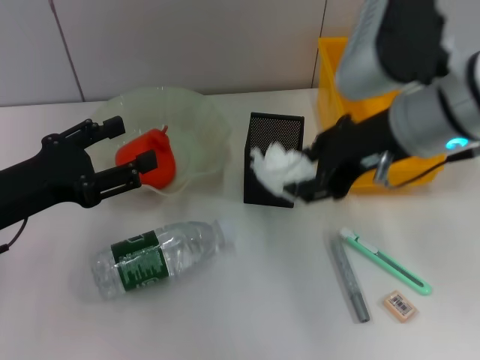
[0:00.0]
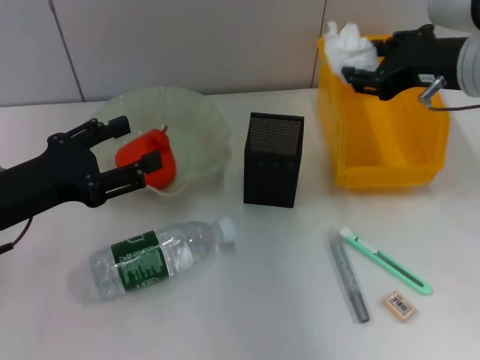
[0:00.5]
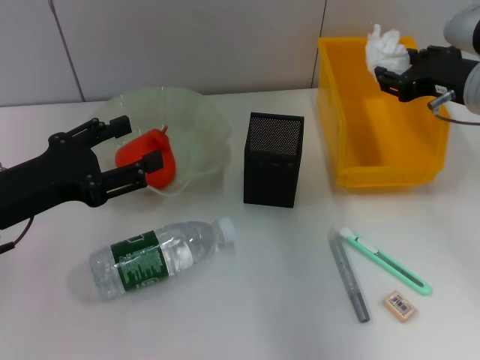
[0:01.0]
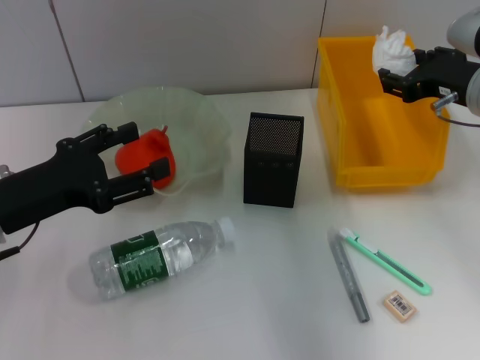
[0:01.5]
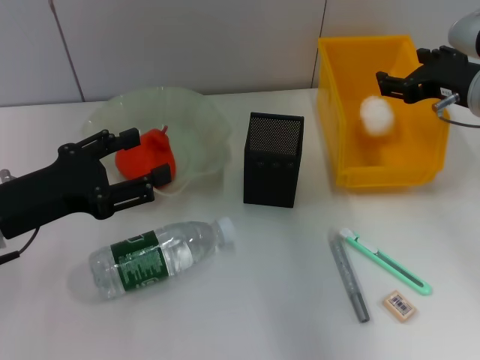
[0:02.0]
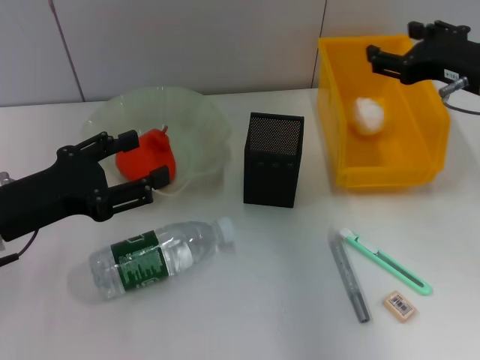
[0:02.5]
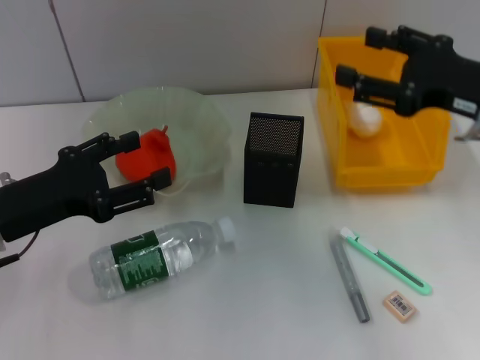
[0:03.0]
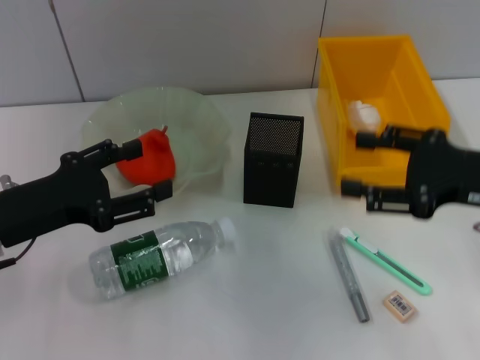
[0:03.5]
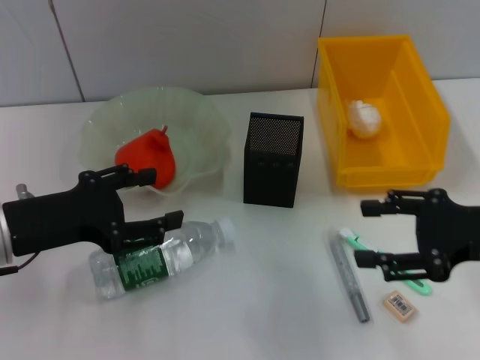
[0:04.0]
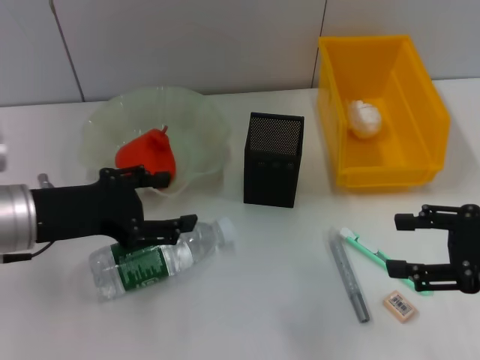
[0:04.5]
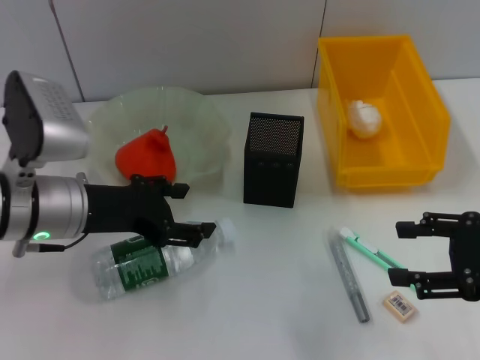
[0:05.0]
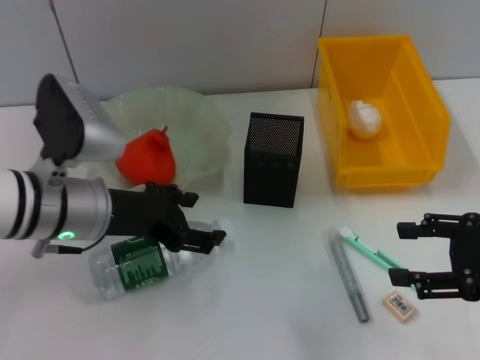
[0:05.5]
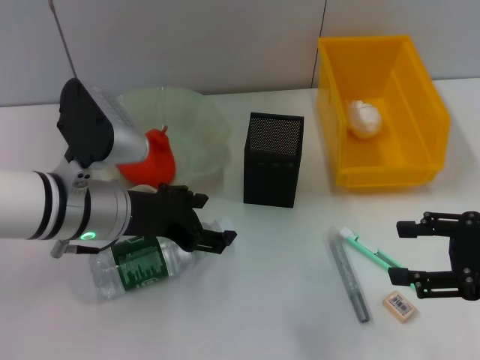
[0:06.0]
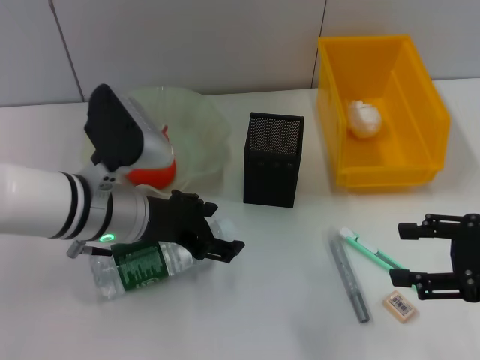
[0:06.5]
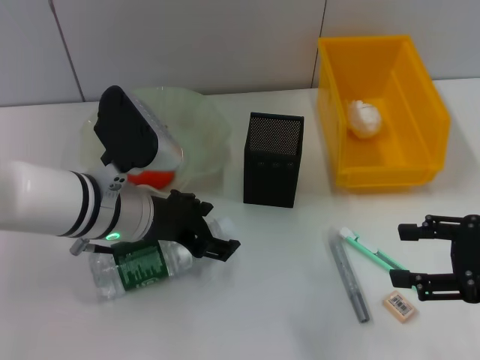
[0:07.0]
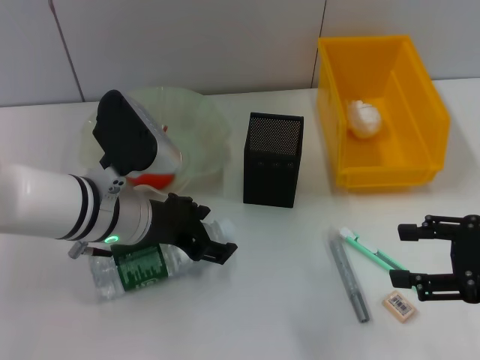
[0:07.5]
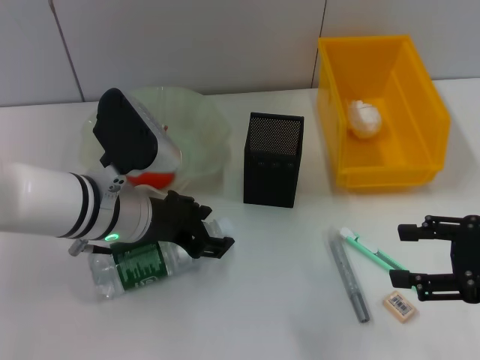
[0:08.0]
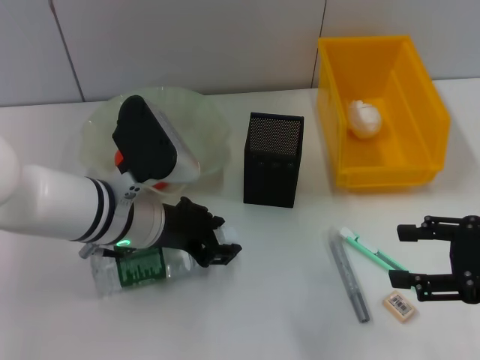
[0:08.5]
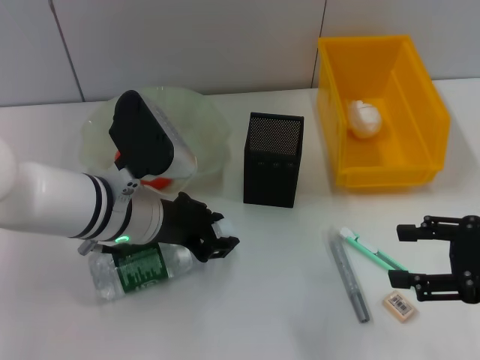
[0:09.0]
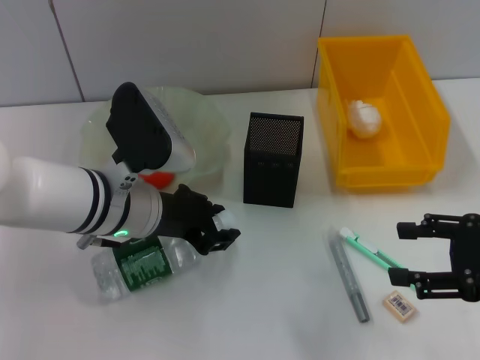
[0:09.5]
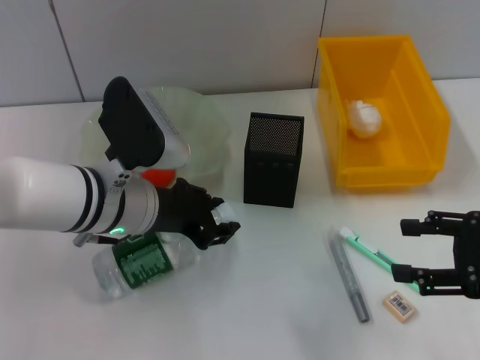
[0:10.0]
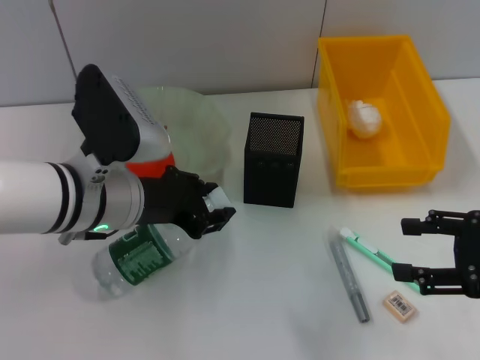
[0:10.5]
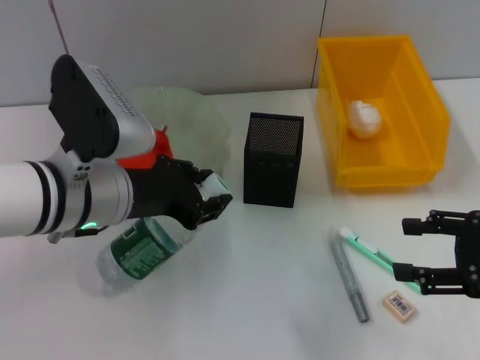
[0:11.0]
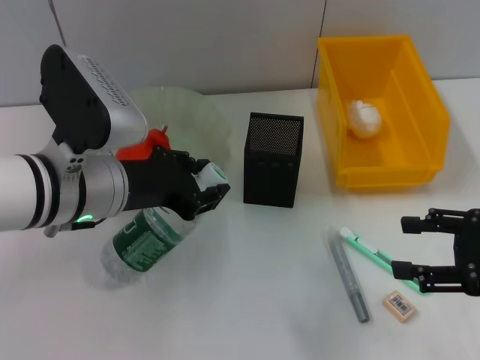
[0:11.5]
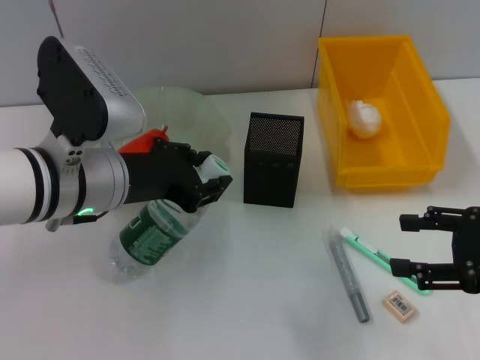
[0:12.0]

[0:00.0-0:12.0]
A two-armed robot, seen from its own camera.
Step, 0:00.0 to 0:02.0: Place the paper ball into the trash can with the right hand.
Step, 0:02.5 to 0:08.5: Grab the water bottle with the left hand.
0:00.0 to 0:02.0: The right gripper shifts roughly 15 cm to the right, downward and forward.
0:02.0 to 0:04.0: The right gripper shifts about 10 cm backward.
0:04.0 to 0:06.0: The left gripper heads to the right, covering approximately 10 cm.
0:06.0 to 0:08.0: There are only small adjustments of the grippers.
0:08.0 to 0:10.0: The left gripper closes.
0:10.0 to 0:12.0: There are only small adjustments of the grippers.

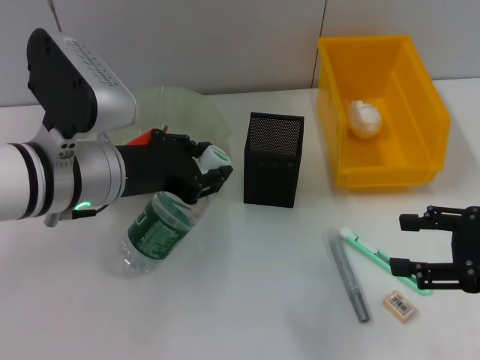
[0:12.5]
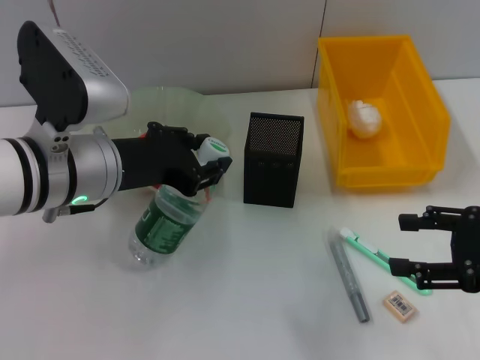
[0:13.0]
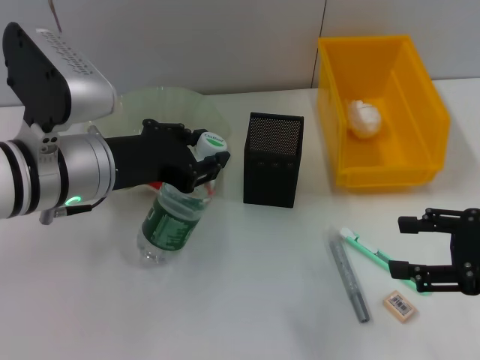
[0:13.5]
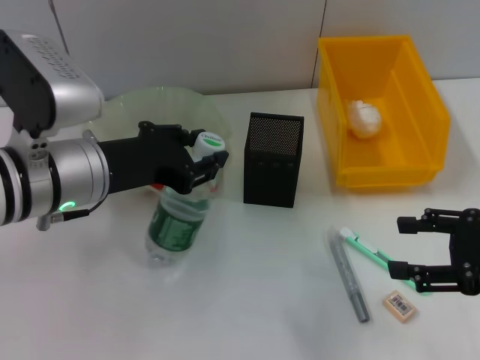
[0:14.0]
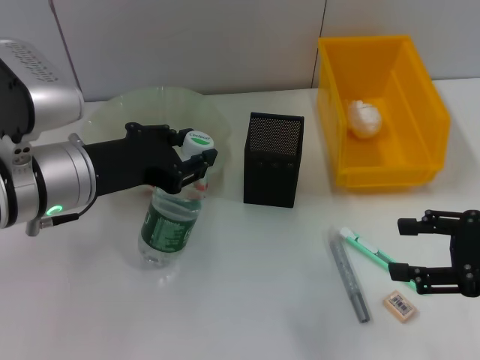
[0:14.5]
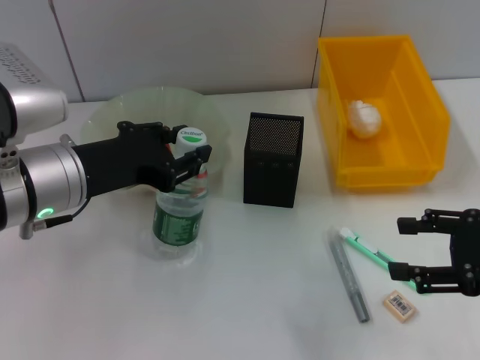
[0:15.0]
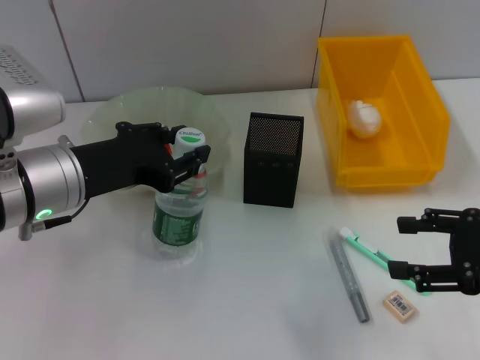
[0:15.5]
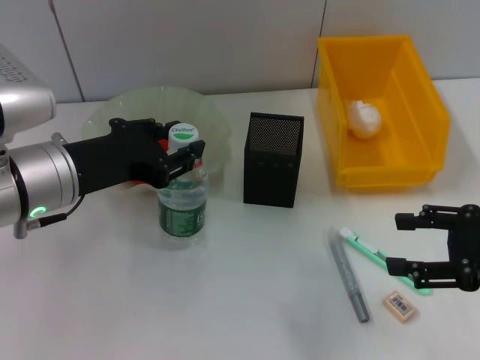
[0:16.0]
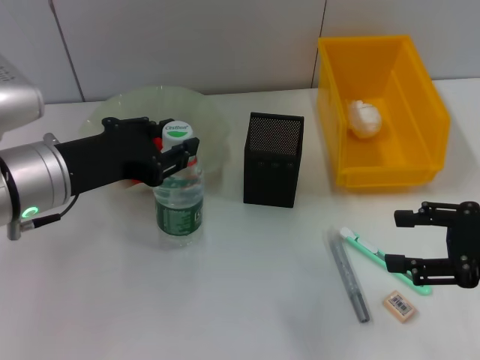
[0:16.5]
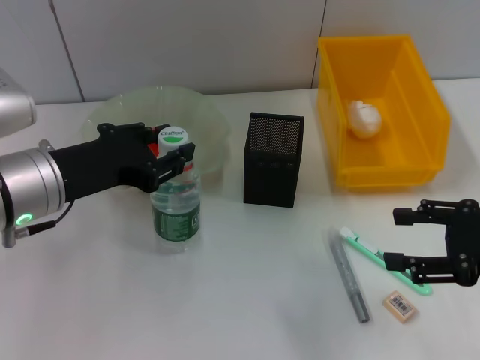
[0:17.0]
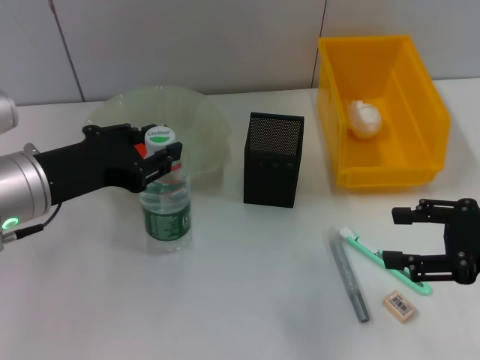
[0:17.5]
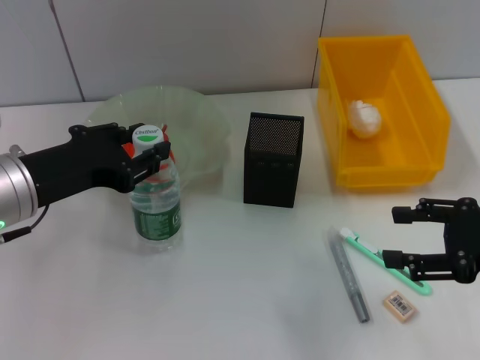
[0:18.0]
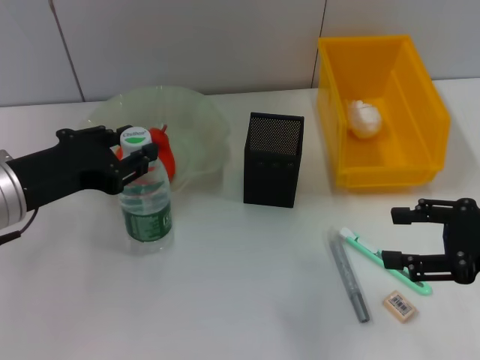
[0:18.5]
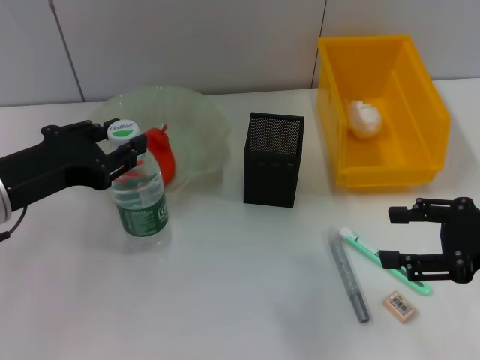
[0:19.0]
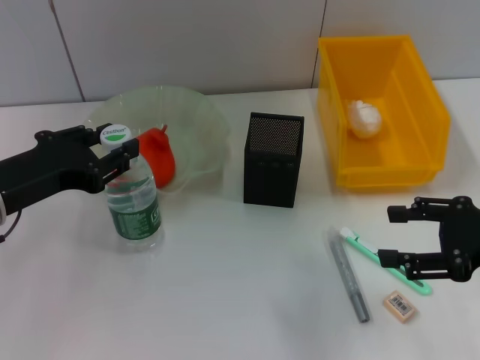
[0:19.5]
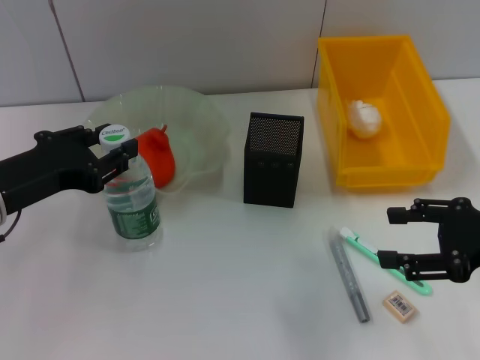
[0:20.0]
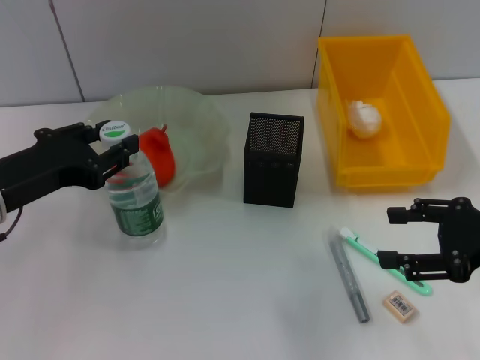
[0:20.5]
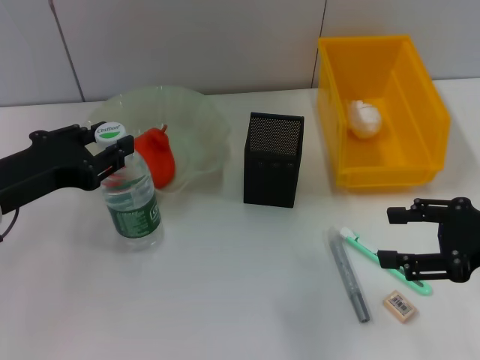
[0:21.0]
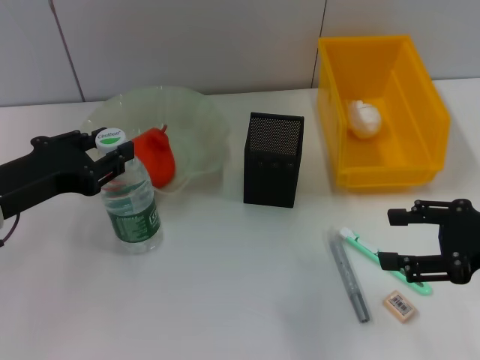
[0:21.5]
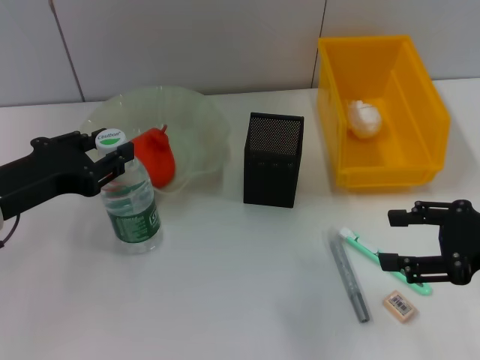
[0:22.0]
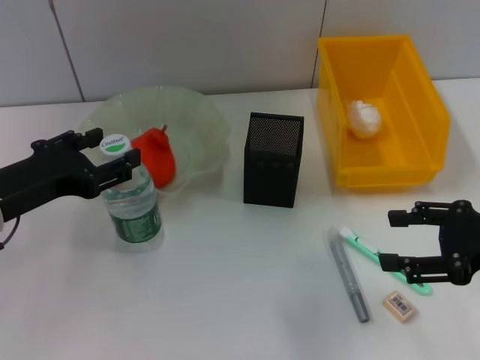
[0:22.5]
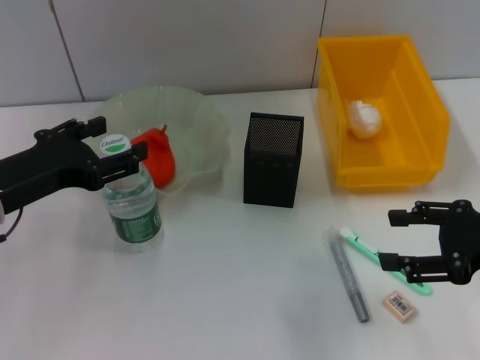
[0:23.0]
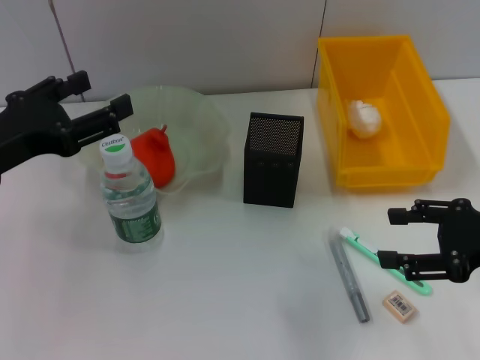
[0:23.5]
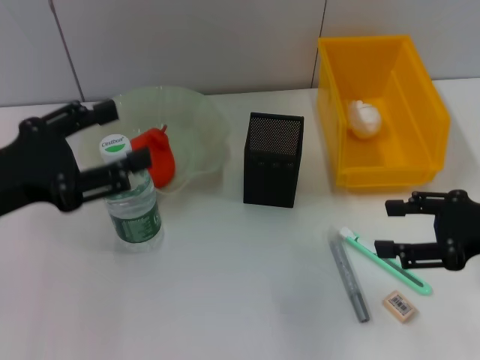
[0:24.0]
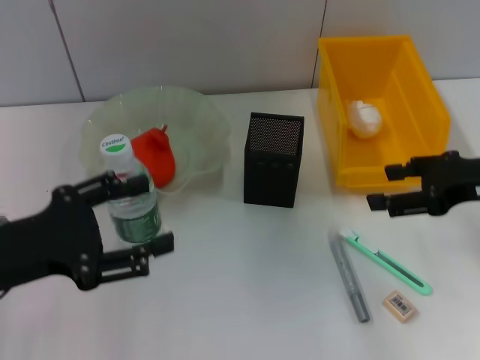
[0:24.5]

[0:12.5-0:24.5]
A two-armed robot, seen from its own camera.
Step, 0:12.5 to 0:22.5: Place the water bottle on the table with the left hand.
0:12.5 to 0:16.5: The grippers move only a little.
0:16.5 to 0:20.5: The grippers move only a little.
0:20.5 to 0:22.5: Neither gripper changes place.
0:22.5 to 0:24.5: The right gripper travels forward by some 5 cm.

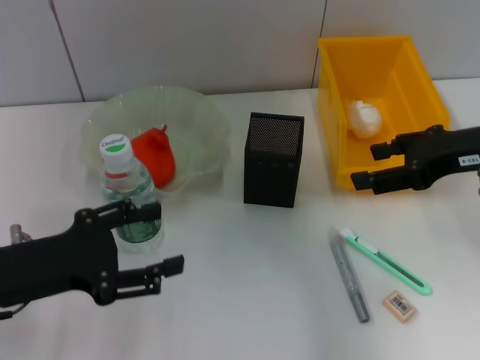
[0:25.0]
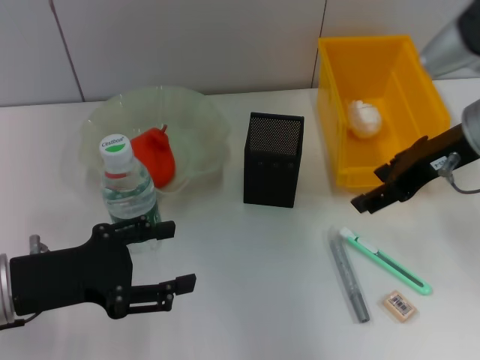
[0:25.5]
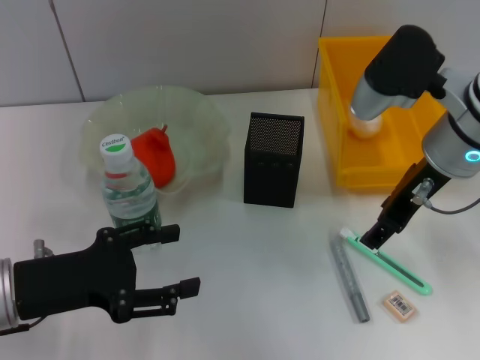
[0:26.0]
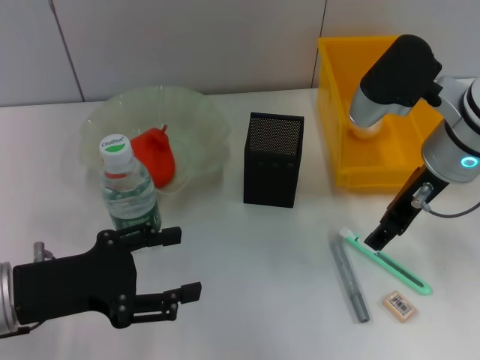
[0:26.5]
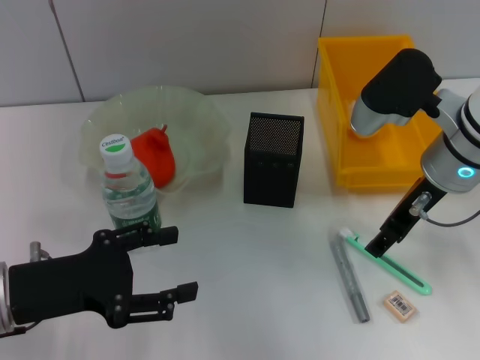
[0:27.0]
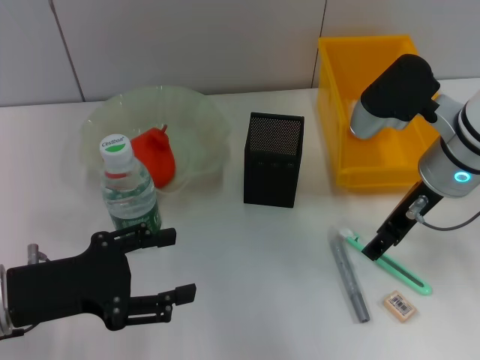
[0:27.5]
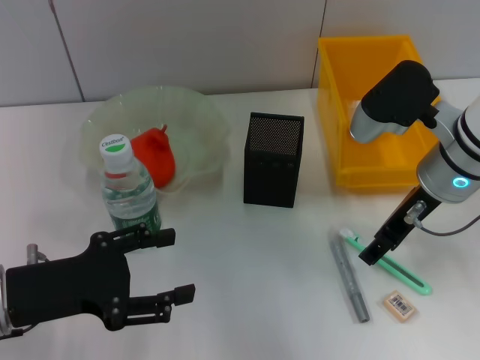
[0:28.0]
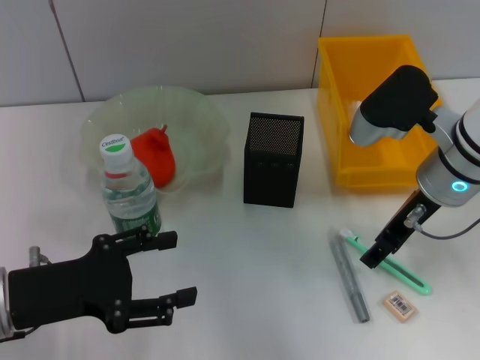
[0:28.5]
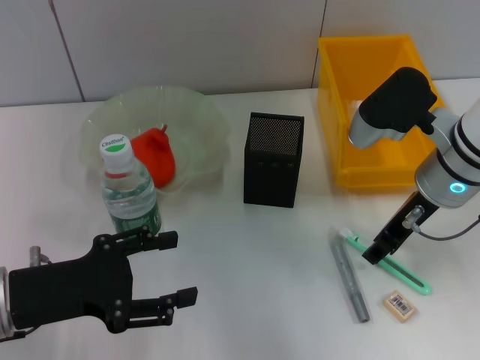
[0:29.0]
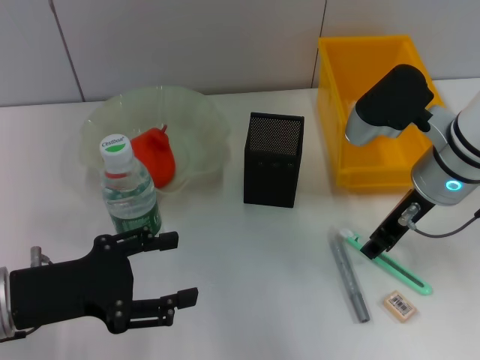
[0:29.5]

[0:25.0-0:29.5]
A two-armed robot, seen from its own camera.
0:25.0 to 0:27.0: The right gripper travels to the left by approximately 10 cm.
0:27.0 to 0:29.5: The right gripper closes.
